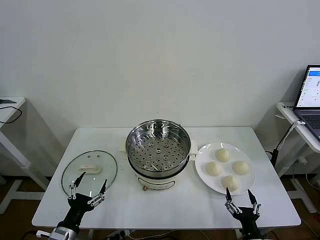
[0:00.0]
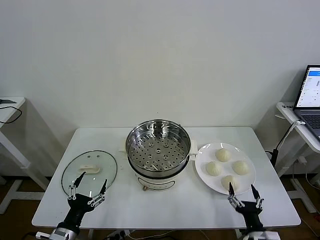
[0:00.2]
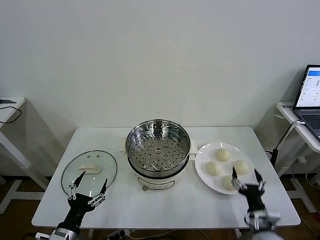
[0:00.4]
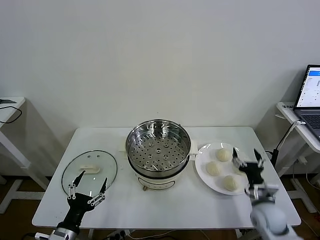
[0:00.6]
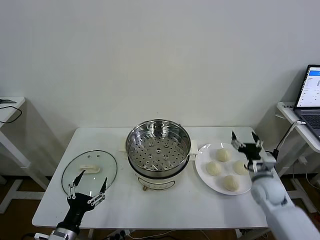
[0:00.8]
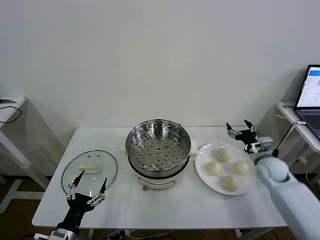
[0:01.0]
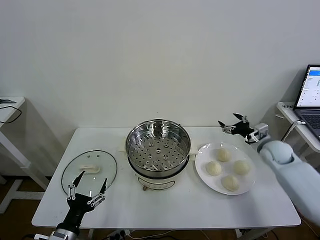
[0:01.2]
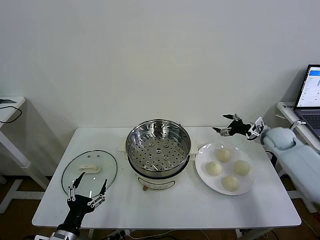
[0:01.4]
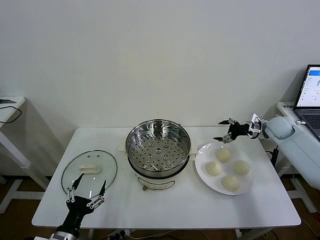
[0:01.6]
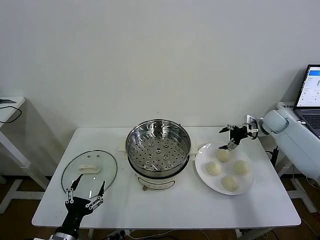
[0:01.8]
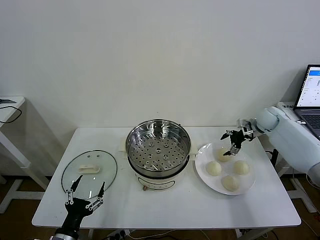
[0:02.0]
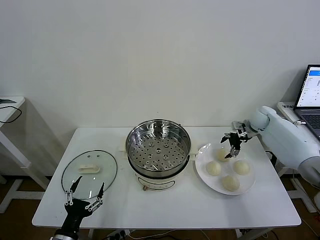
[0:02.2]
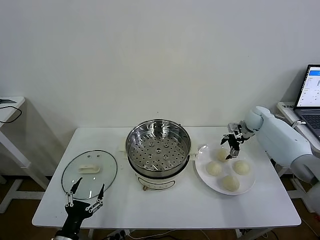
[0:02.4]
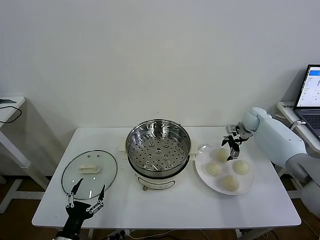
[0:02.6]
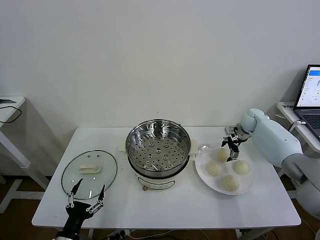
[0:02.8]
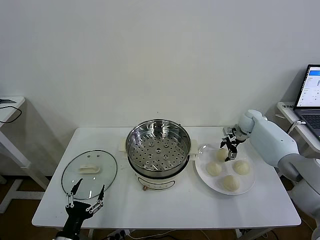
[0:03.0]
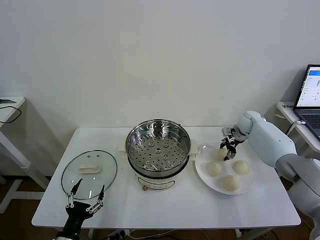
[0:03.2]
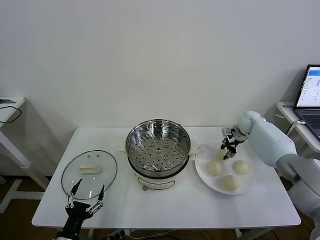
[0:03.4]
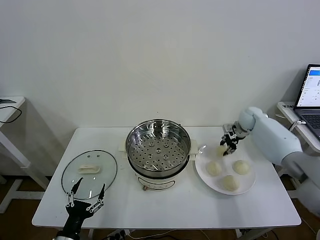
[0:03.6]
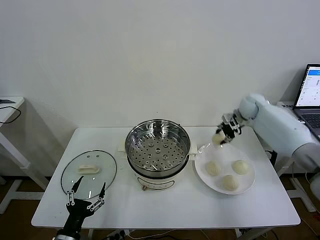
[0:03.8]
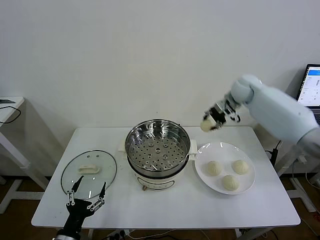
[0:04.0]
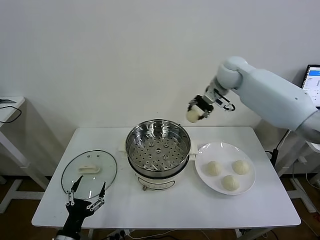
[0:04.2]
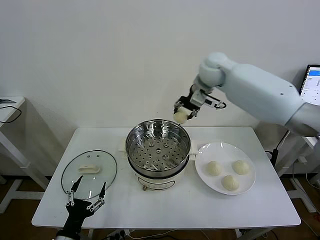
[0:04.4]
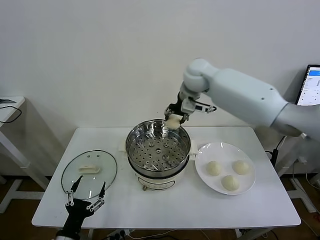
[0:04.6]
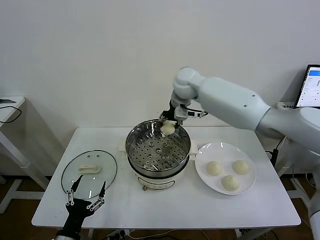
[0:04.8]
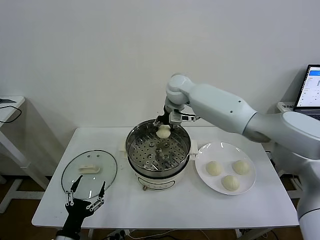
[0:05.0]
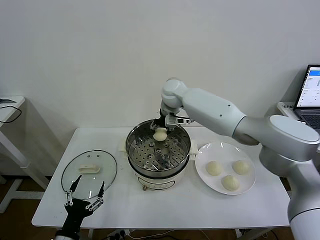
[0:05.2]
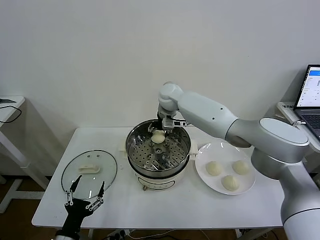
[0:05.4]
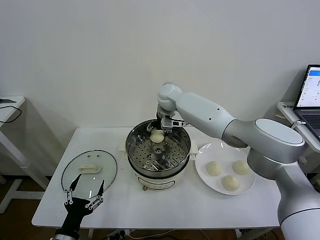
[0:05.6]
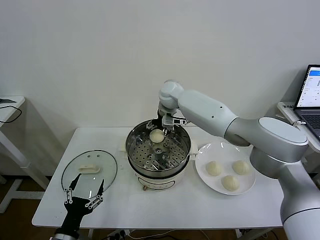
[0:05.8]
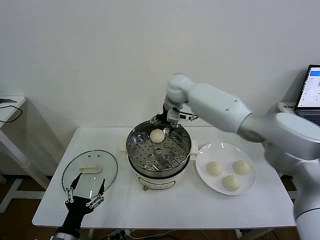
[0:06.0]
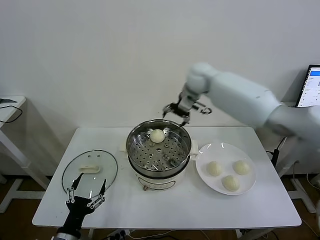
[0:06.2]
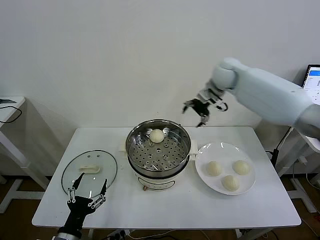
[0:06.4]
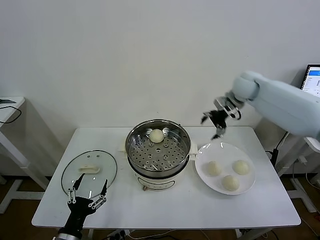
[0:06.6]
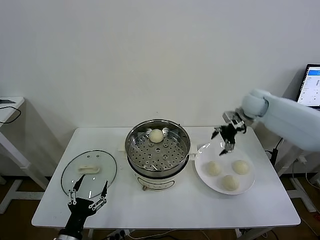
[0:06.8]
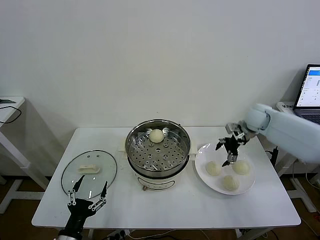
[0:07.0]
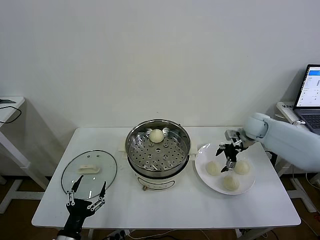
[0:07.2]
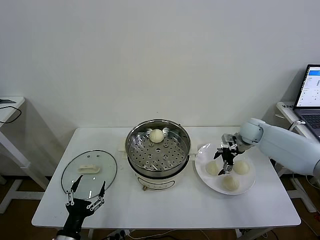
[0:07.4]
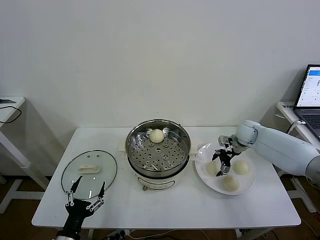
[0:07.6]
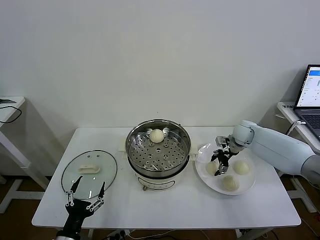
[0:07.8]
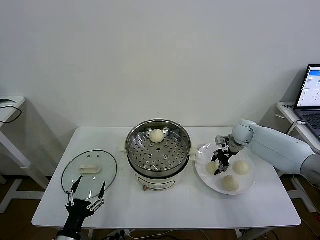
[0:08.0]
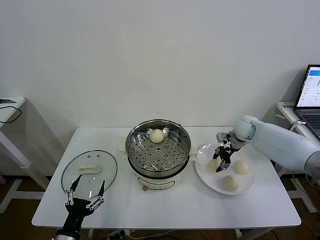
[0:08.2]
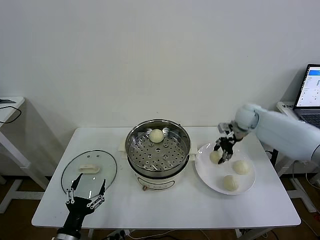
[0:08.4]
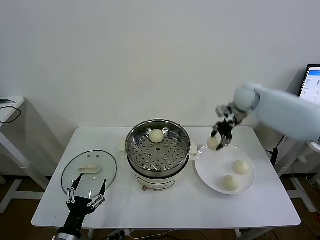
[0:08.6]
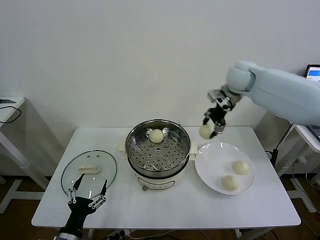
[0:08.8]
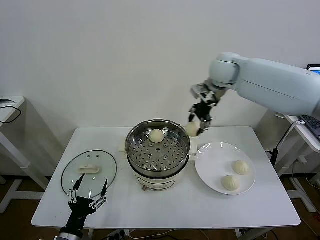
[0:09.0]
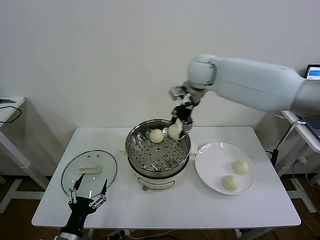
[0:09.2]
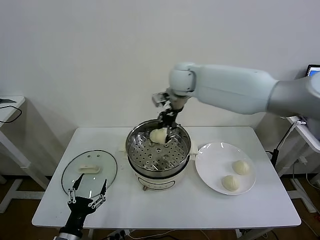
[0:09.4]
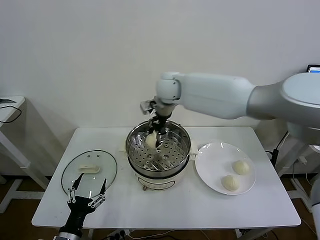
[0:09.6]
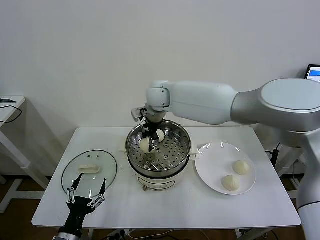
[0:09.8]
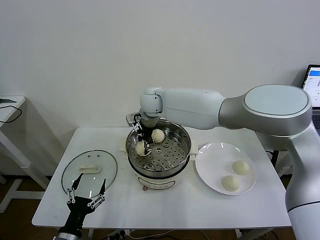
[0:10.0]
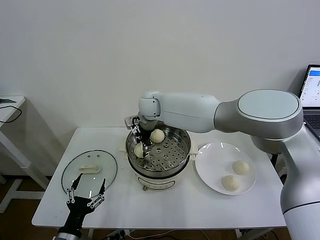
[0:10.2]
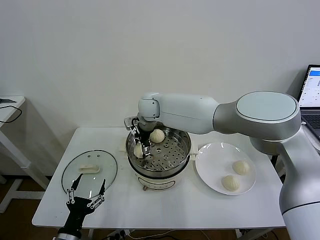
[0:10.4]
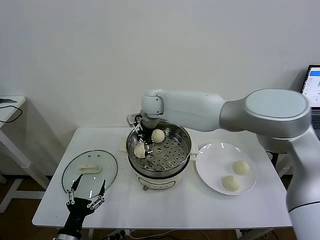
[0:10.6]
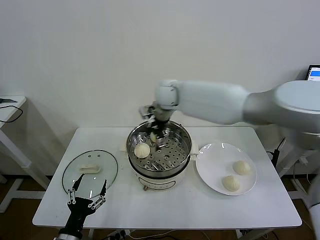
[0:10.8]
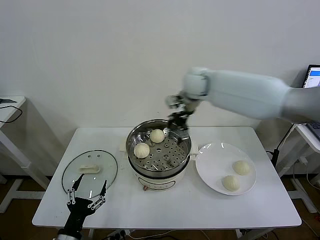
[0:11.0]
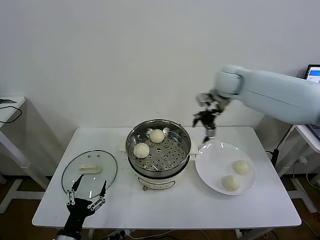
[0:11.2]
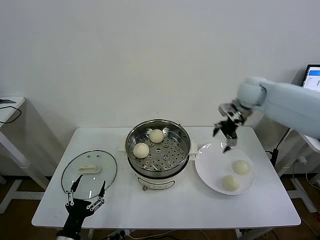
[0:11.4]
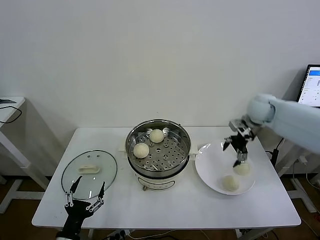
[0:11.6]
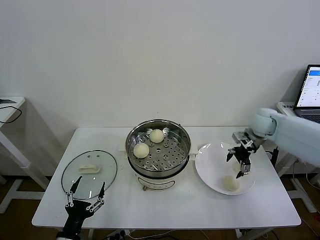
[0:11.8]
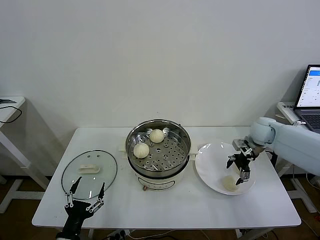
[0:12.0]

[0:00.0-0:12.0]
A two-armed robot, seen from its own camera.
Task of the whole recording: take steamed baozi put them in steamer then cover it.
Step, 0:00.0 to 0:03.2: Grasp the baozi in the plate with right gripper.
Step, 0:03.4 to 0:05.8: Place the baozi on the steamer with right gripper.
Step, 0:06.0 to 0:07.8: Grasp the baozi in the plate with right gripper.
Step, 0:08.0 to 0:10.4: Place the baozi on the steamer with right gripper.
0:01.6 to 0:03.0: The right gripper heads to the left, forward and downward, covering approximately 10 cm.
0:03.0 to 0:04.4: The right gripper travels to the left and upward by approximately 35 cm, and closes.
0:04.4 to 0:06.0: The right gripper heads downward, covering about 5 cm, and opens its fingers.
0:06.0 to 0:07.6: The right gripper moves to the right and downward, about 30 cm.
0:07.6 to 0:09.0: The right gripper is displaced upward and to the left by approximately 30 cm, and closes its fingers.
0:09.0 to 0:10.4: The right gripper moves to the left and downward, approximately 25 cm, and opens its fingers.
0:10.4 to 0:12.0: The right gripper is displaced to the right by roughly 40 cm.

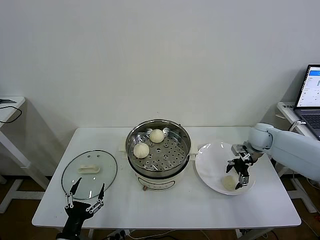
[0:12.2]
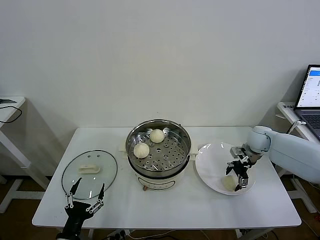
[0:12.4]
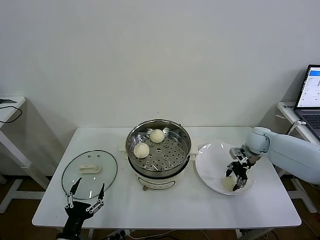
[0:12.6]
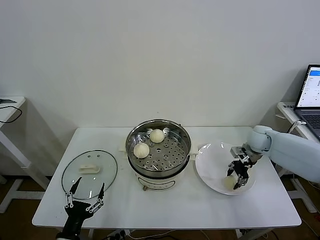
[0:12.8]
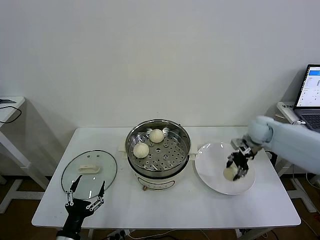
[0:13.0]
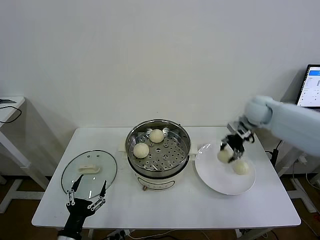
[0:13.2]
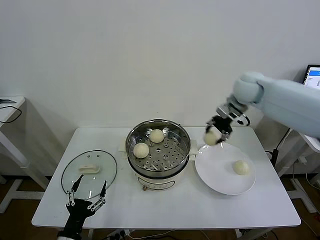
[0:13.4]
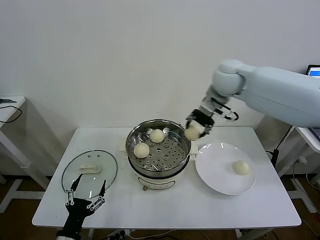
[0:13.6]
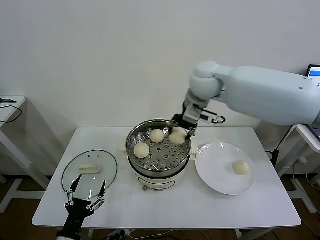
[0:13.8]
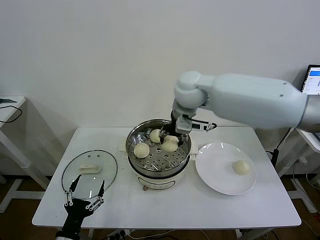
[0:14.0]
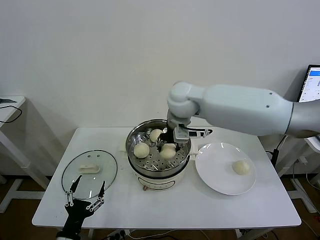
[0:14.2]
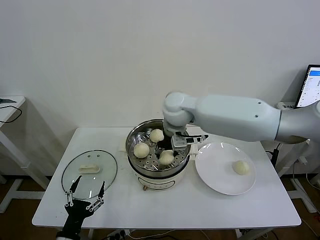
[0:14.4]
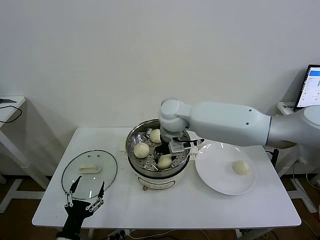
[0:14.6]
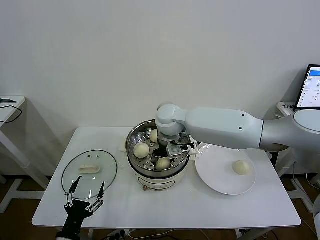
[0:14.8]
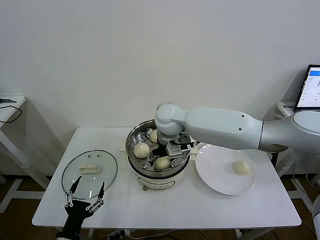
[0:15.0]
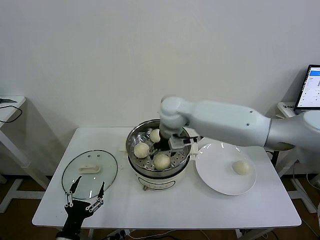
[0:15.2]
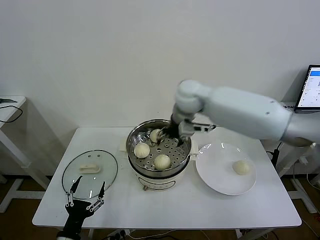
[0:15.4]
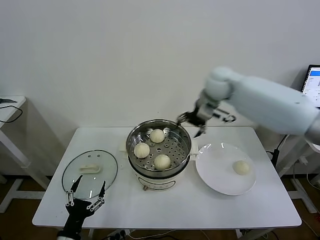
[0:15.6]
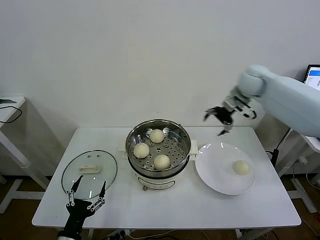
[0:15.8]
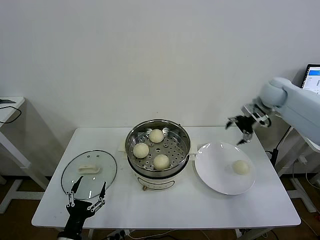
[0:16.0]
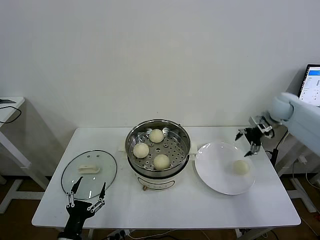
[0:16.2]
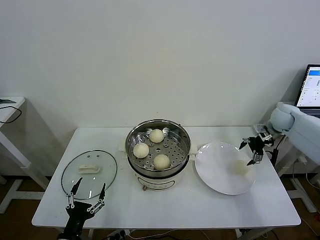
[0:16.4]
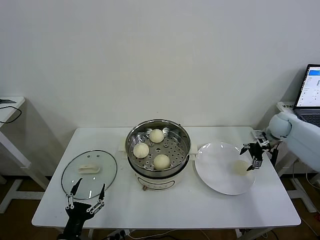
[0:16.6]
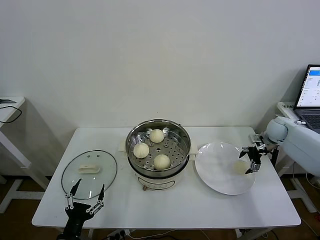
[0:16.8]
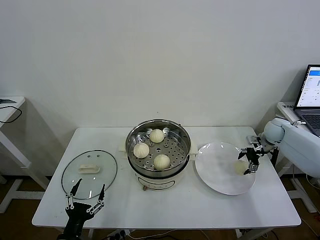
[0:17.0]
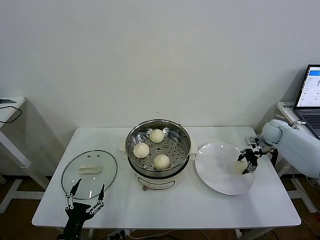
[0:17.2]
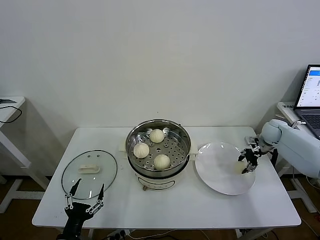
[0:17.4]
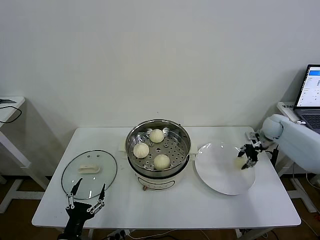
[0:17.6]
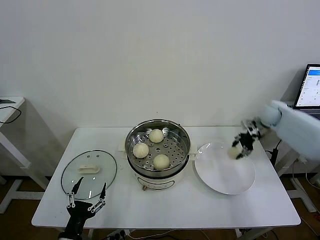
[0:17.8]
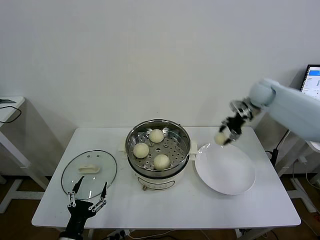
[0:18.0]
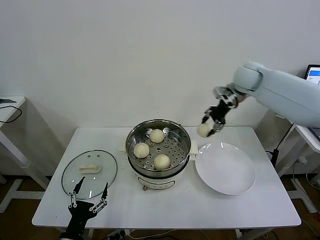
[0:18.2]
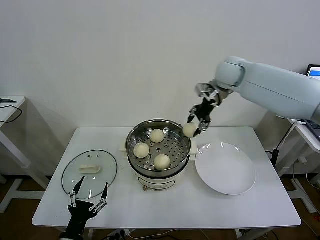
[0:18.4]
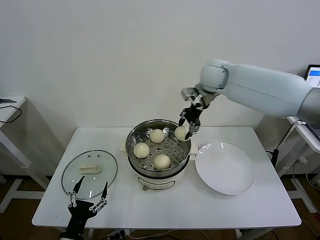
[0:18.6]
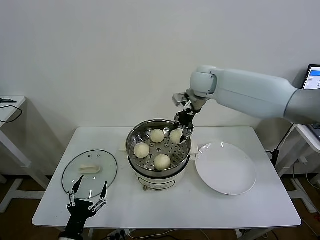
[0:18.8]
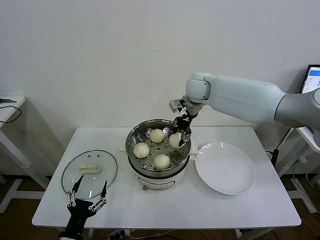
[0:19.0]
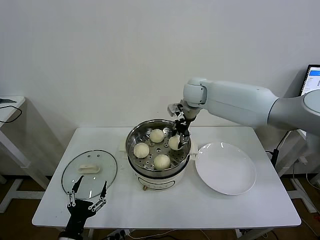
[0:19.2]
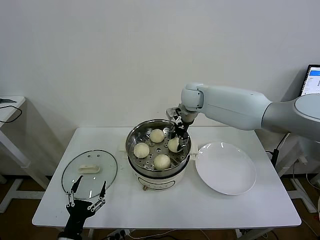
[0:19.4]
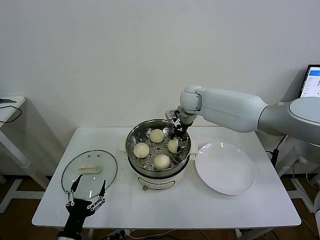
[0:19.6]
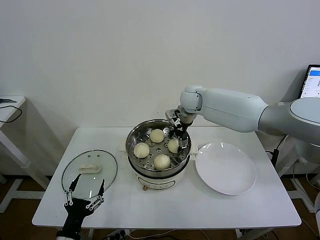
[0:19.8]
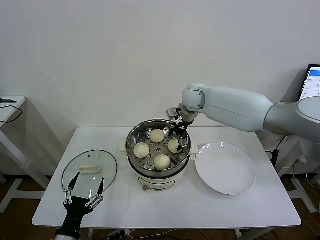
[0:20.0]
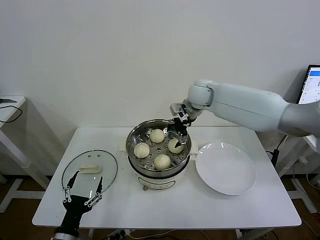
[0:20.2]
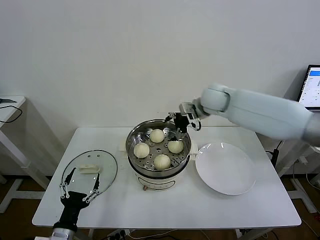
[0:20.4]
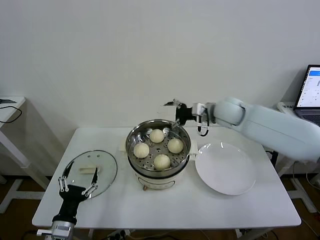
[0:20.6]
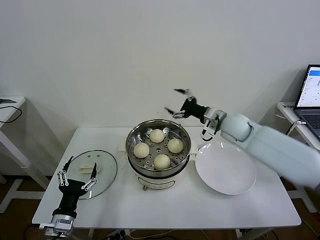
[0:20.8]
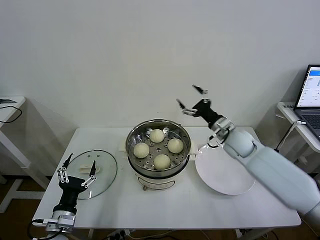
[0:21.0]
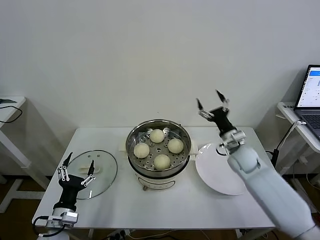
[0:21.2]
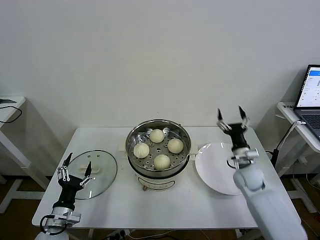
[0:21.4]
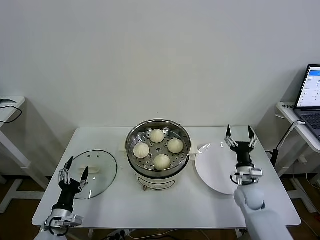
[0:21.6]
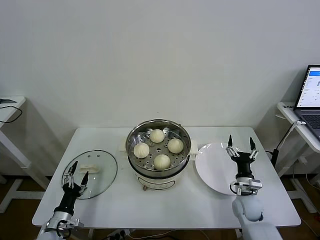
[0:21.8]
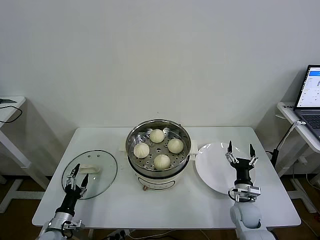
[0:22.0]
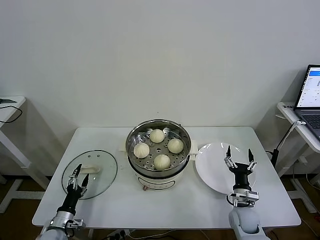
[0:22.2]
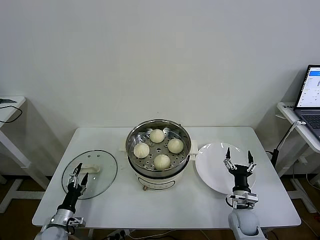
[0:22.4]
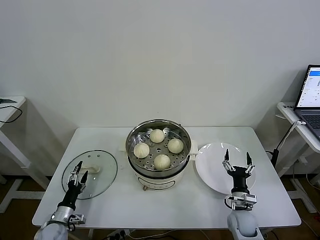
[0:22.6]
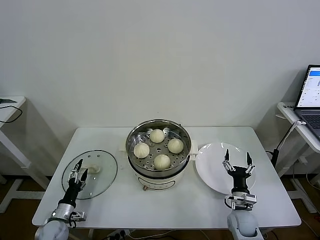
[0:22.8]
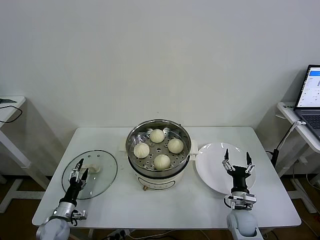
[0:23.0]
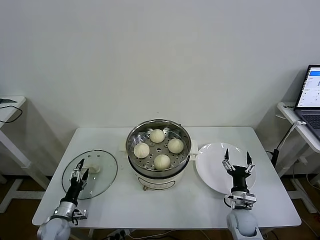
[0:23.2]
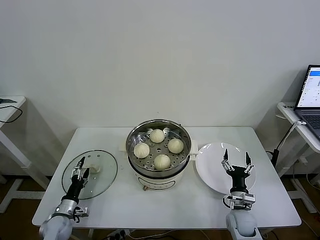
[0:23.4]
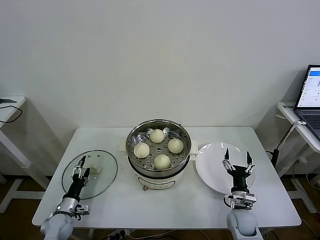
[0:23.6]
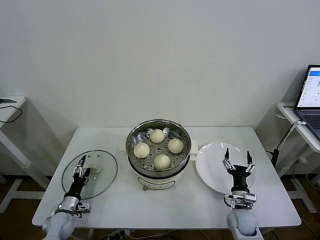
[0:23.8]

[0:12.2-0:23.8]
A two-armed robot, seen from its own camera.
Task of the whole recording: take steamed baozi put them in steamer then cover it.
Step, 0:12.8 to 0:15.2: Place the baozi on the steamer with right gripper.
Step, 0:15.4 to 0:17.4: Grasp the baozi in the plate with right gripper.
Step, 0:17.8 to 0:19.8: Place the baozi on the steamer with right gripper.
0:12.2 to 0:13.6: The right gripper goes some 30 cm upward and to the left, and closes up.
0:13.6 to 0:15.0: The right gripper moves to the left and downward, approximately 20 cm, and opens.
0:15.0 to 0:16.6: The right gripper is displaced to the right by roughly 40 cm.
0:16.6 to 0:18.0: The right gripper shifts approximately 15 cm upward and to the left, and closes up.
0:18.0 to 0:19.4: The right gripper travels to the left by about 25 cm.
0:19.4 to 0:21.0: The right gripper shifts some 25 cm to the right, backward and downward, and opens its fingers, while the left gripper travels forward by roughly 5 cm.
0:21.0 to 0:22.4: The right gripper moves downward and backward, roughly 30 cm; the left gripper is displaced downward and to the left by about 15 cm.
0:22.4 to 0:23.8: The left gripper is displaced forward by some 5 cm.
